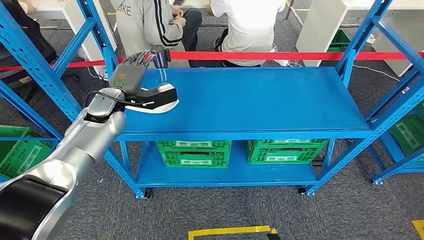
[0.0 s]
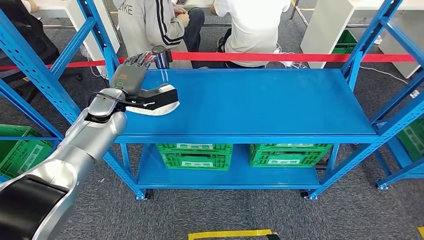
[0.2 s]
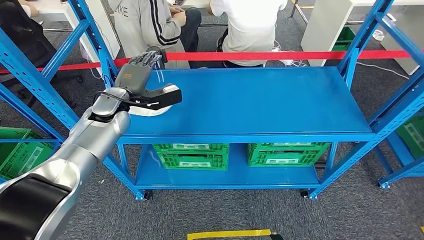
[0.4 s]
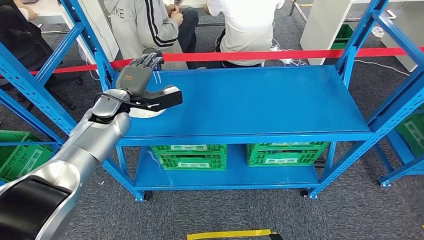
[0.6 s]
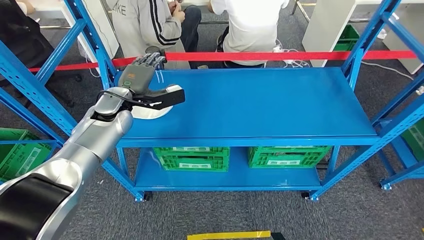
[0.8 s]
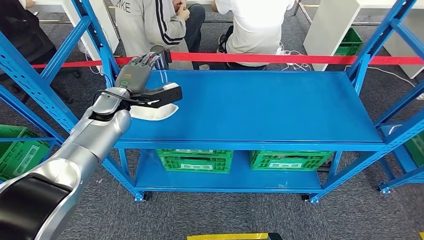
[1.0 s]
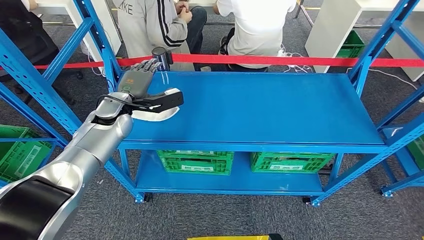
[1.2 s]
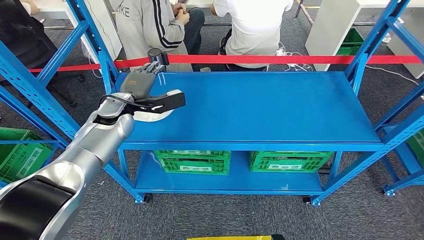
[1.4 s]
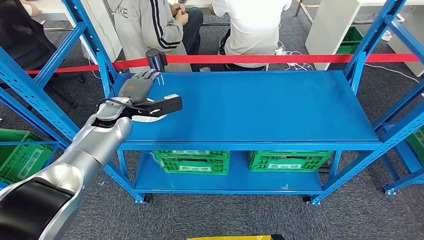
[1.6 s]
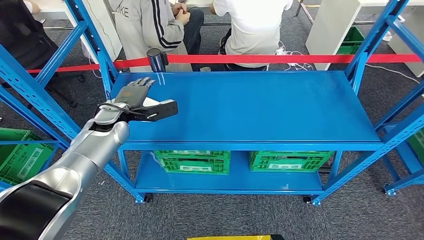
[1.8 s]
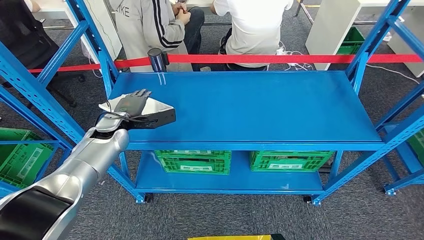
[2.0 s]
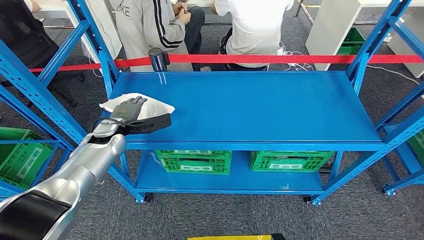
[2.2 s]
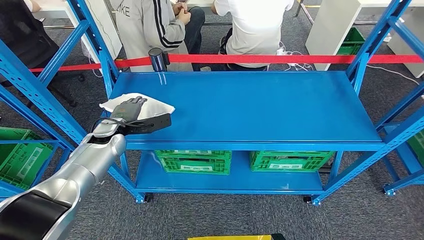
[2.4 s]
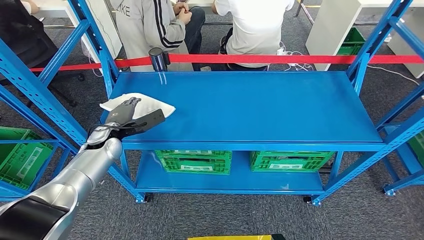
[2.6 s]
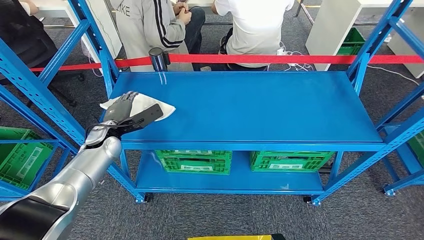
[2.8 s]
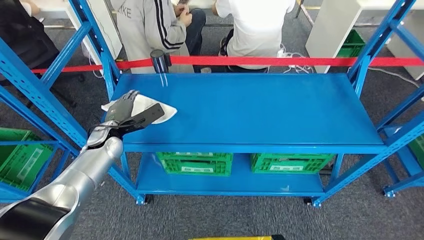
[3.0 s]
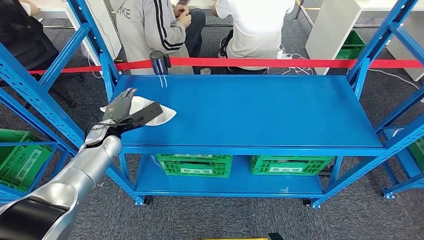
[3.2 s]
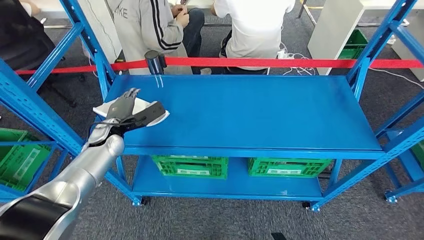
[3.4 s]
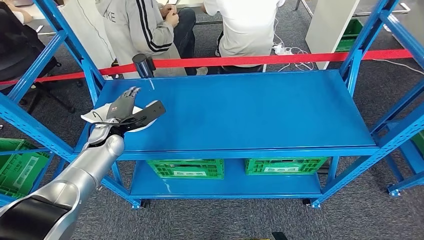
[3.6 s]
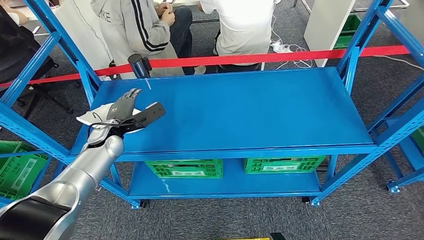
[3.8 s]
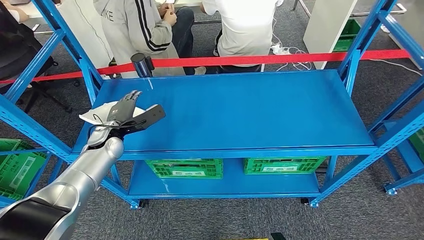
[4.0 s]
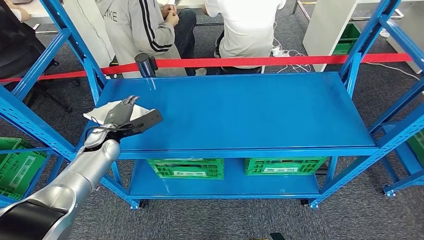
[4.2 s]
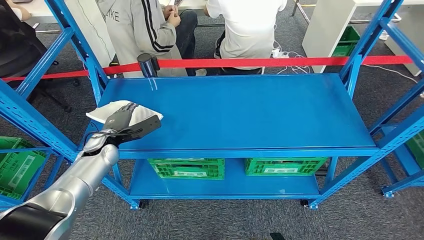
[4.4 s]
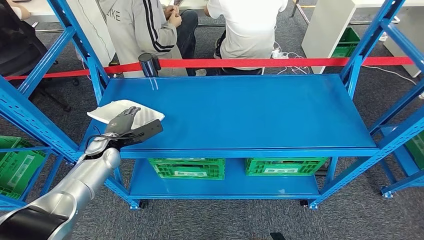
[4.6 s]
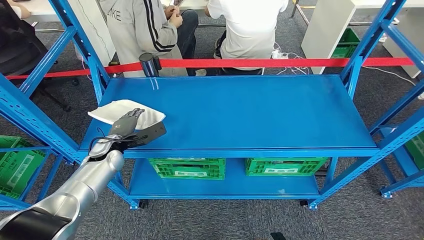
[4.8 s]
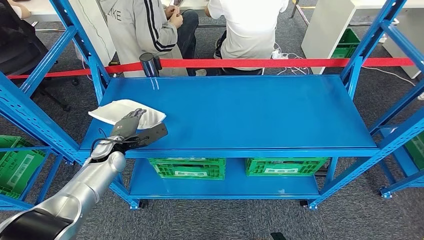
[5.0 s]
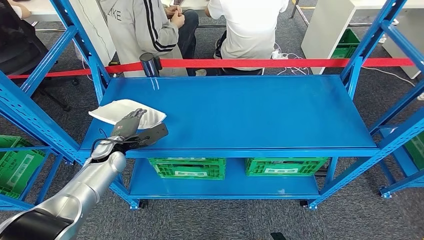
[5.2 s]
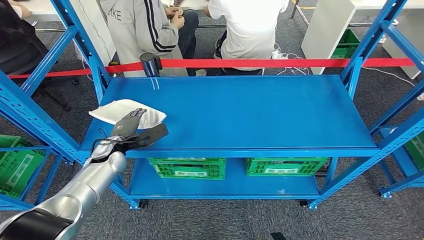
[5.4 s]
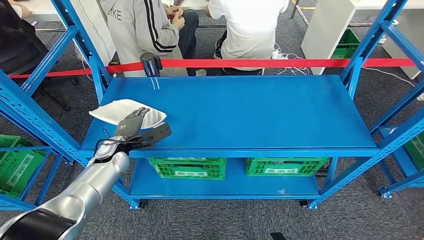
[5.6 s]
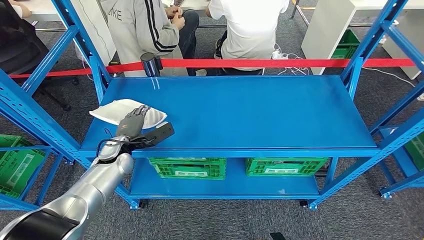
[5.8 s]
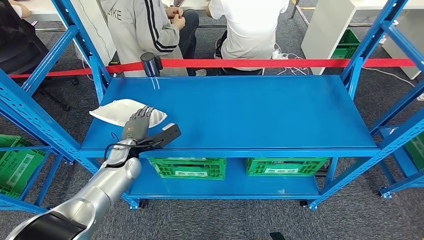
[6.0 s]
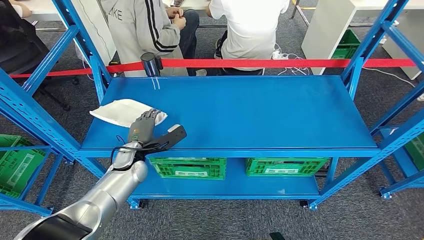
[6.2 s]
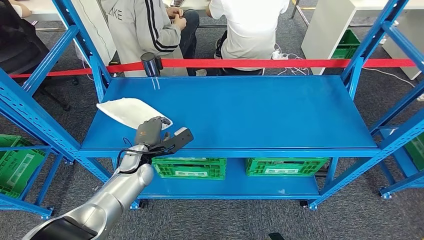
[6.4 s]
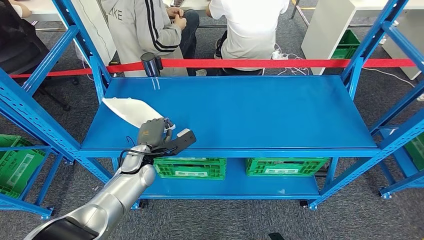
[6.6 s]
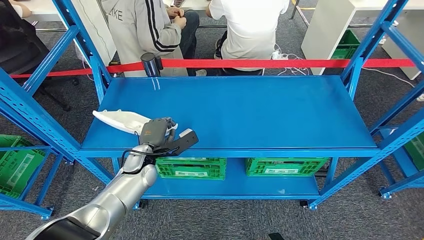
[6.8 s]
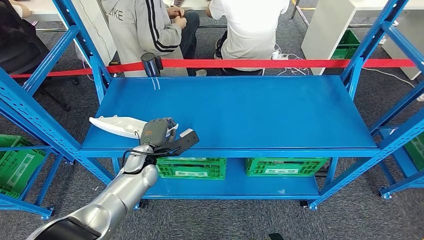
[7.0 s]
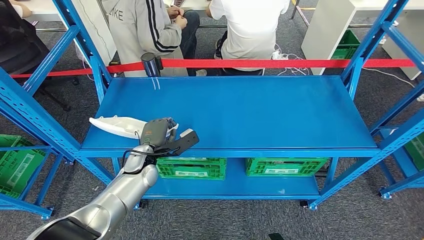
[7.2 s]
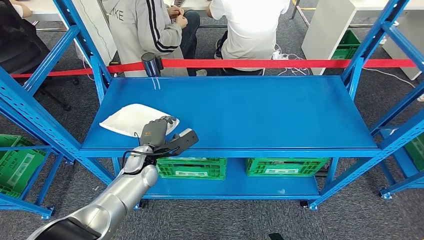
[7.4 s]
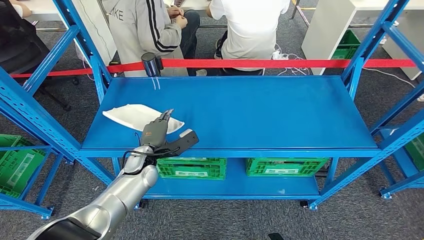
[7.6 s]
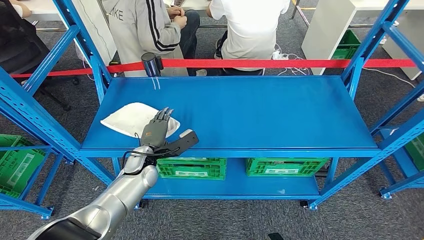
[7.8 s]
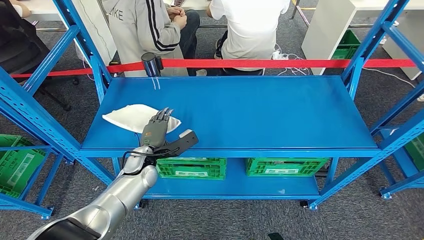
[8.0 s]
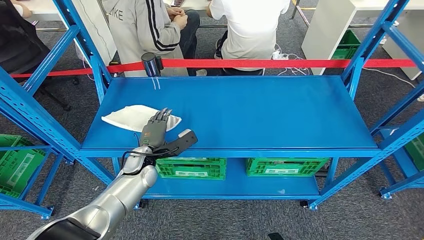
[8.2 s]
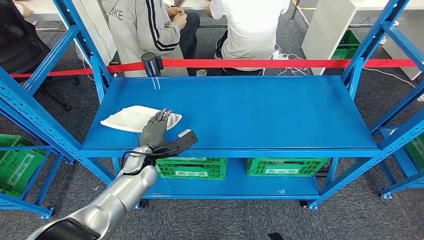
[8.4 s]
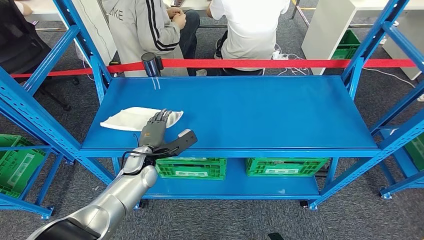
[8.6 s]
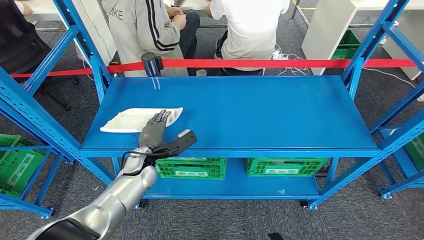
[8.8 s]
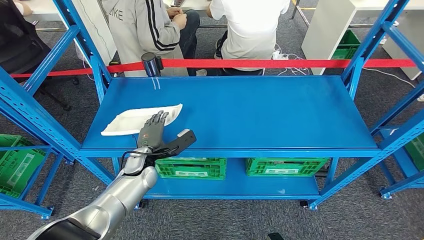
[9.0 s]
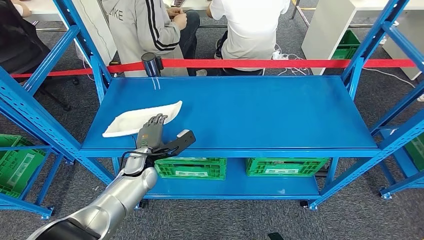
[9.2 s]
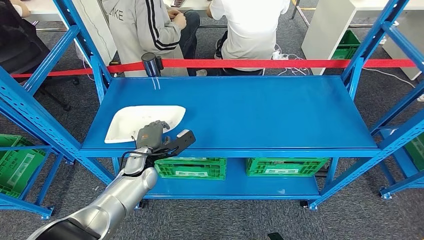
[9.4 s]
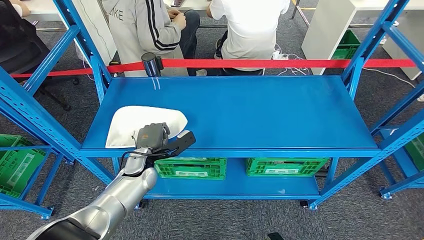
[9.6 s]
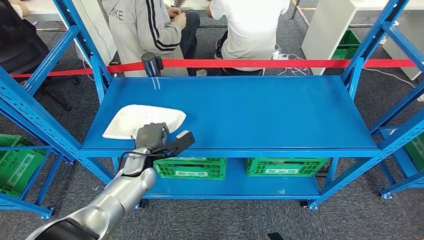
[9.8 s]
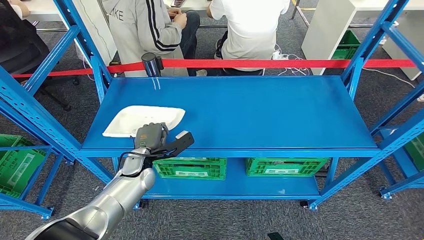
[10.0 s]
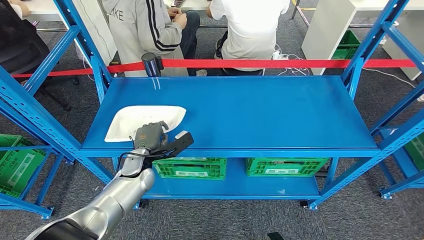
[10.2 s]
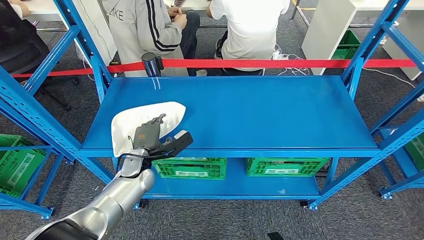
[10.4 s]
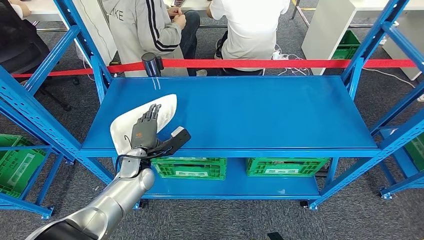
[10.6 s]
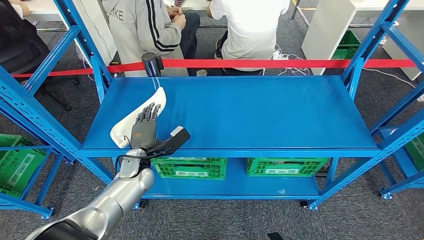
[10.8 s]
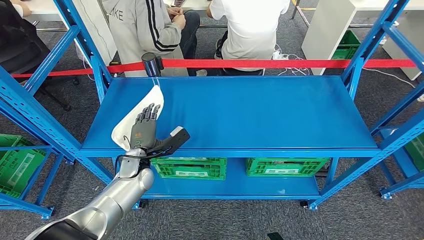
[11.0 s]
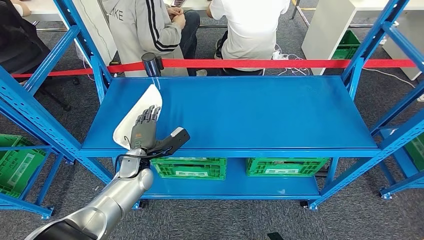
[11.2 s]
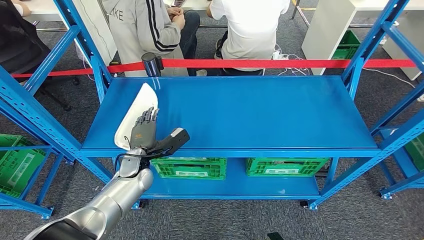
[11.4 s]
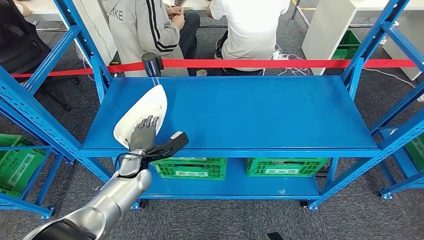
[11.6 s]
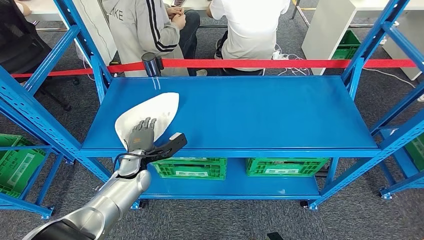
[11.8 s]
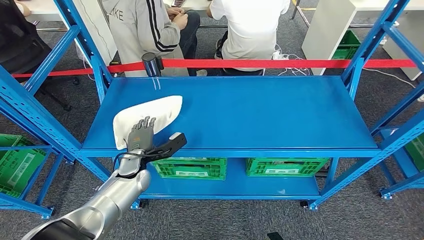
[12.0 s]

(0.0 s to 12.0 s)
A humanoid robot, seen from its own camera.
4.4 s - 6.0 s: The left hand goes some 5 cm to the right.
6.0 s - 7.6 s: The left hand moves to the right, approximately 5 cm.
7.6 s - 12.0 s: The hands move only a little.

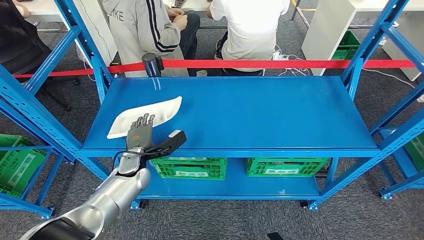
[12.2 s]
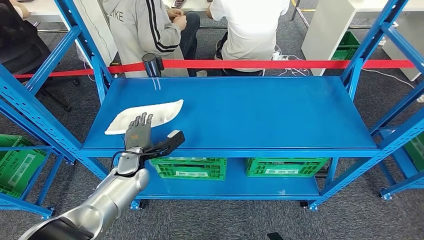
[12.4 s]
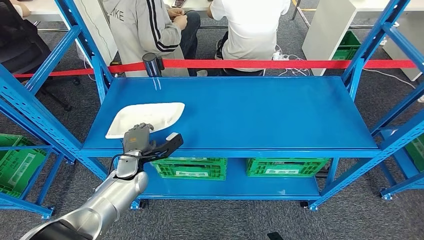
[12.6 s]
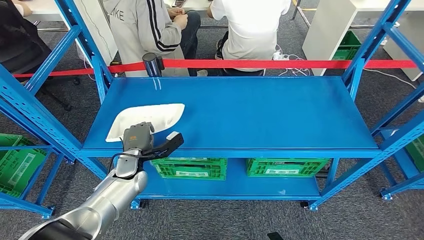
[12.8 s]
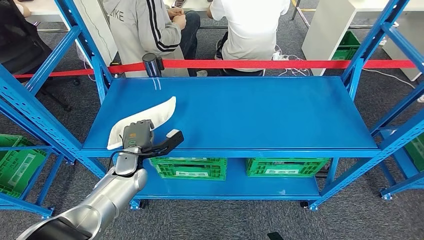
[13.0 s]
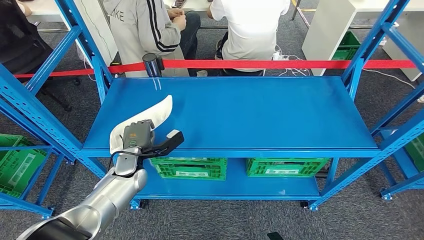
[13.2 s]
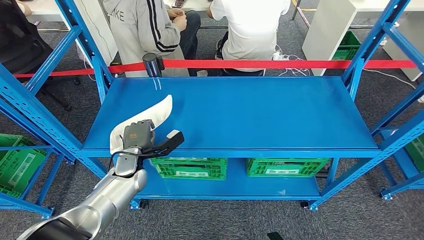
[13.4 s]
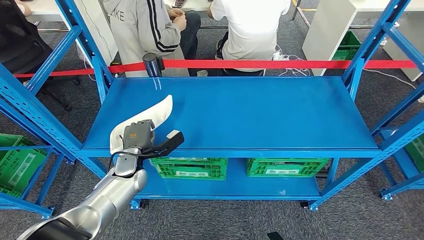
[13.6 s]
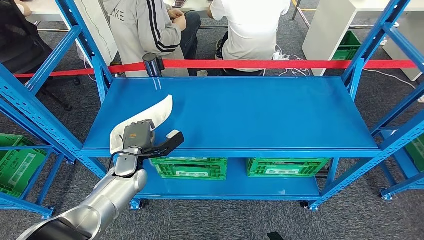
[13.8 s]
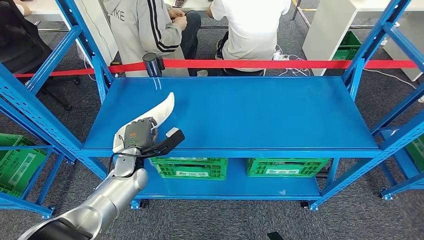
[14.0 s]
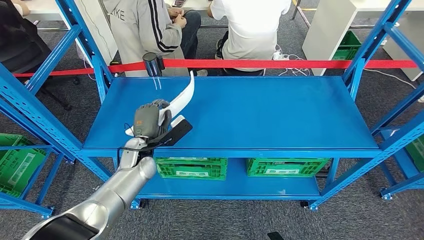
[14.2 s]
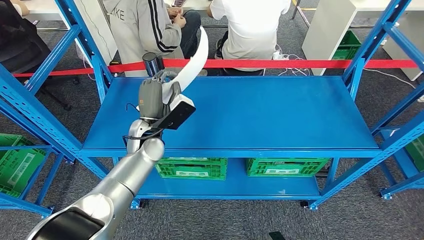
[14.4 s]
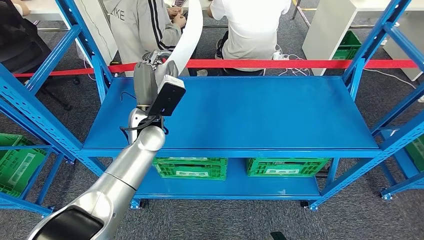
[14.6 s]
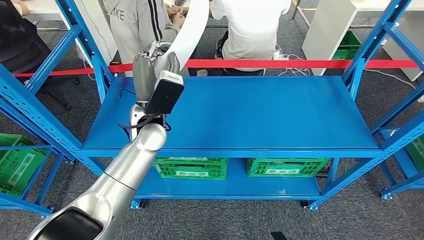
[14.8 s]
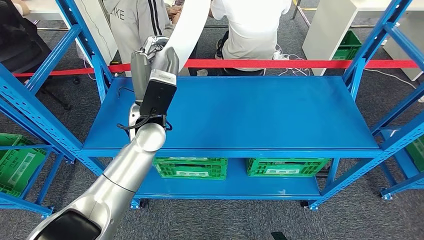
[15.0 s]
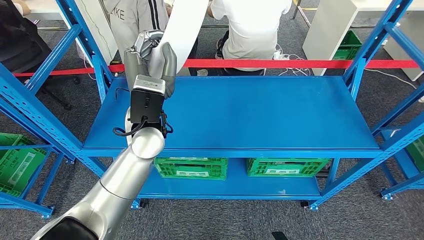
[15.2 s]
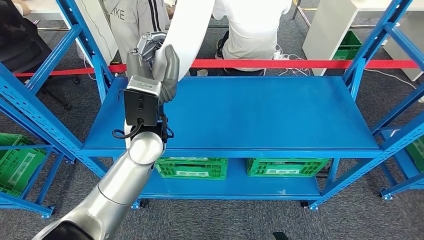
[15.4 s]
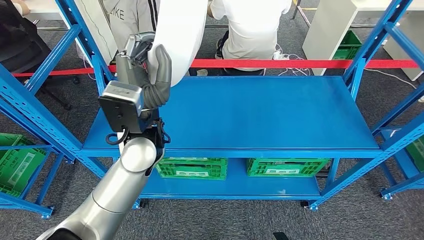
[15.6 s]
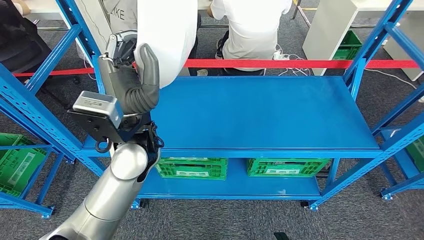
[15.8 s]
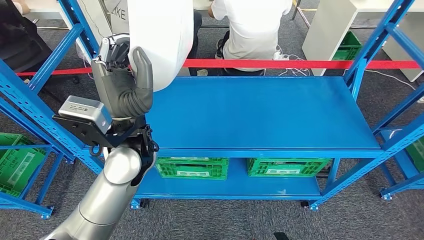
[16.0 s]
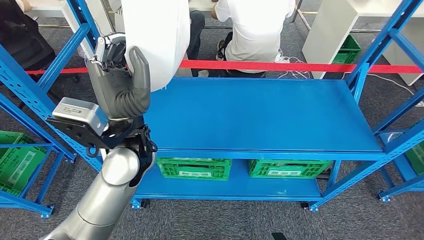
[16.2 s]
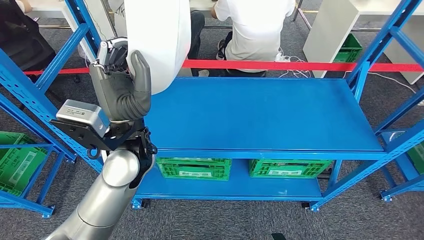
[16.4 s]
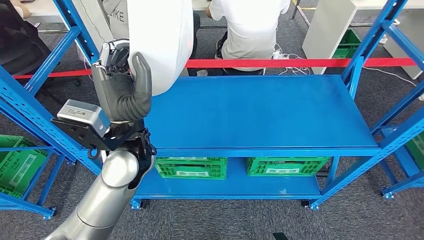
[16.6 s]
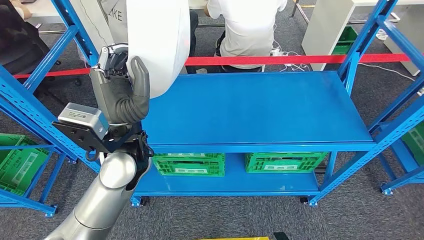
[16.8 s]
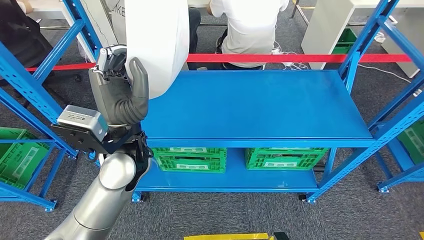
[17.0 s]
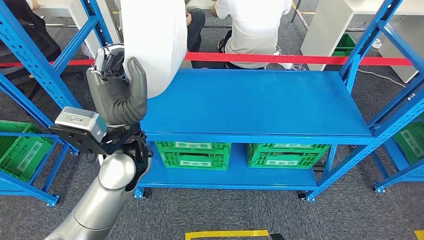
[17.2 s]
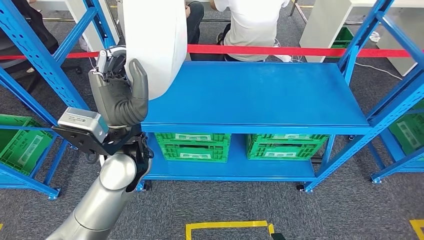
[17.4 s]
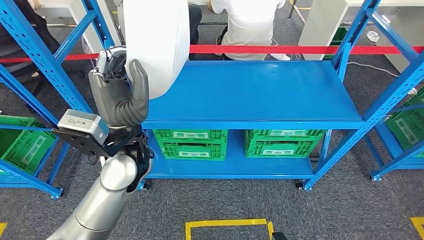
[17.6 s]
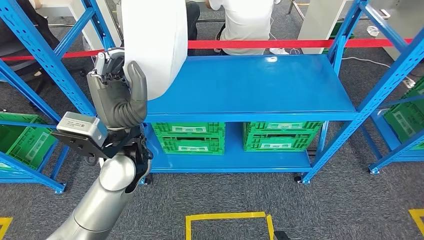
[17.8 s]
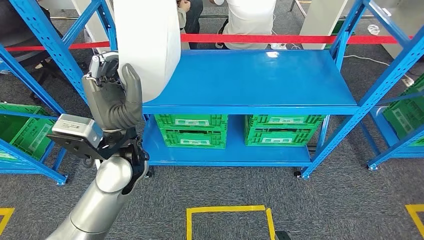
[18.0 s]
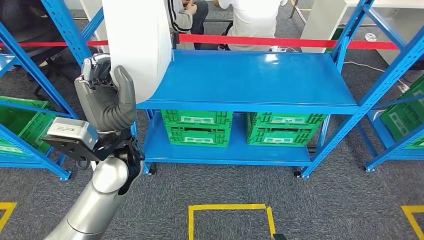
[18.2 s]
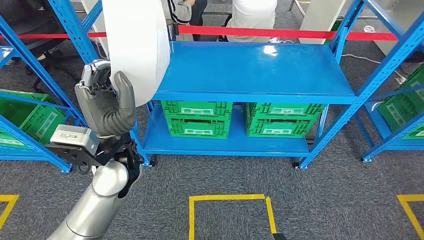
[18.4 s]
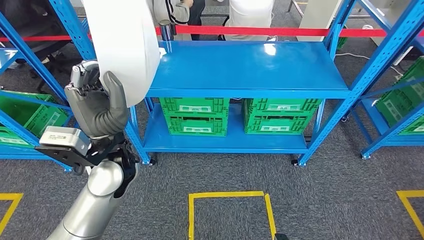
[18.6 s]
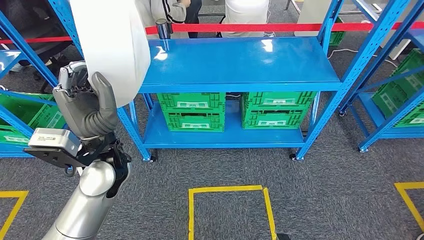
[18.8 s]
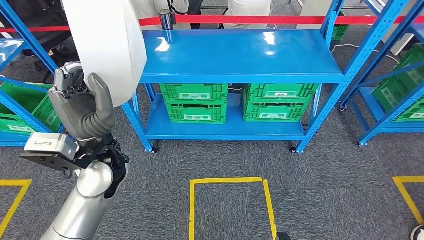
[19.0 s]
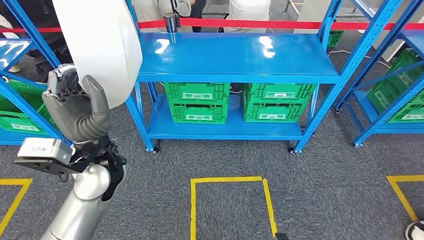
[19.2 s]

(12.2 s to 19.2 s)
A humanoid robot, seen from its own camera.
Step, 12.2 s - 15.8 s: Pick up the large material from the shelf.
12.2 s - 13.6 s: The hands move only a little.
13.6 s - 15.0 s: The left hand heads upward and to the right, covering approximately 20 cm.
